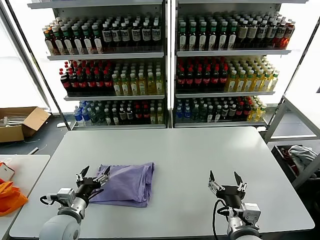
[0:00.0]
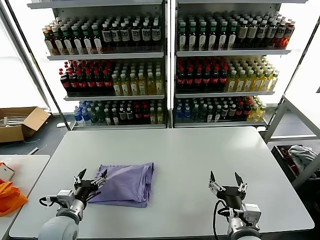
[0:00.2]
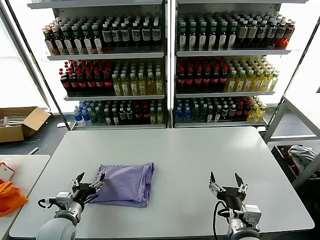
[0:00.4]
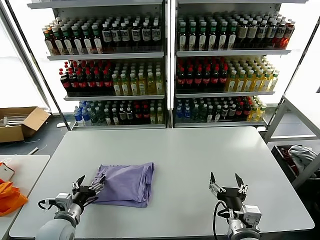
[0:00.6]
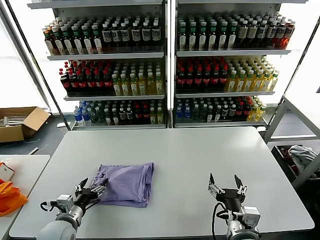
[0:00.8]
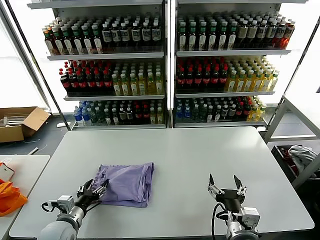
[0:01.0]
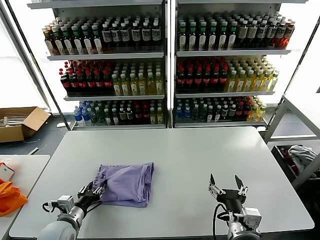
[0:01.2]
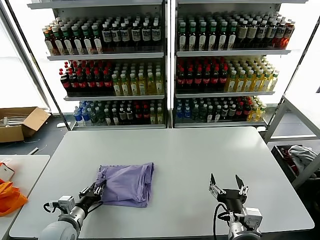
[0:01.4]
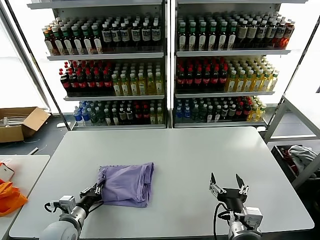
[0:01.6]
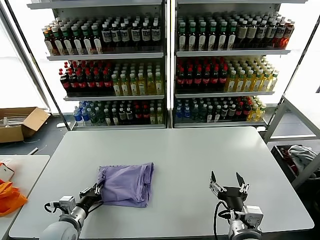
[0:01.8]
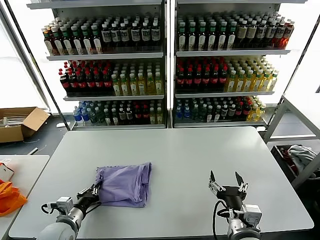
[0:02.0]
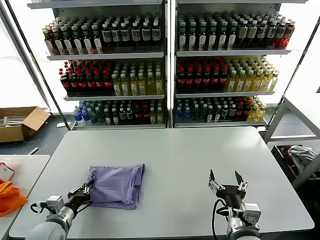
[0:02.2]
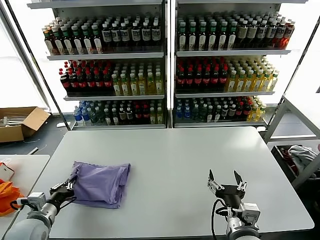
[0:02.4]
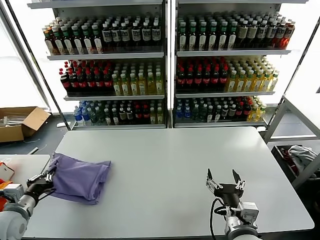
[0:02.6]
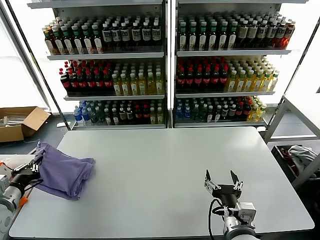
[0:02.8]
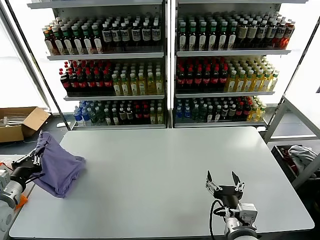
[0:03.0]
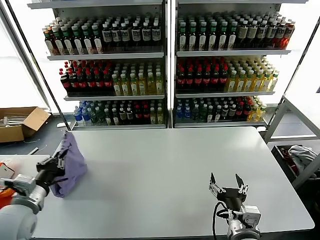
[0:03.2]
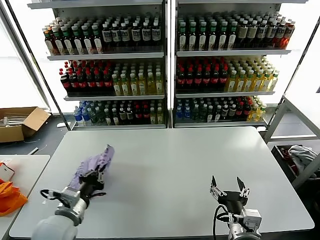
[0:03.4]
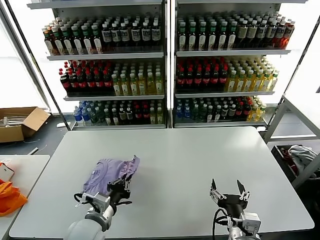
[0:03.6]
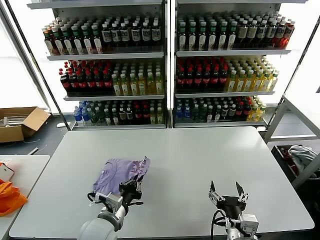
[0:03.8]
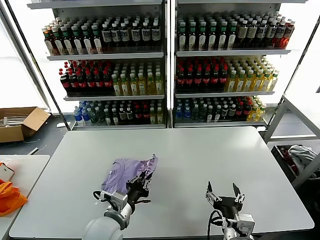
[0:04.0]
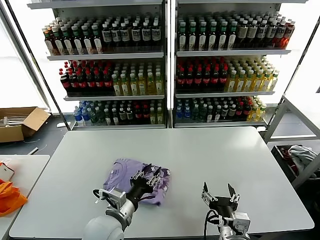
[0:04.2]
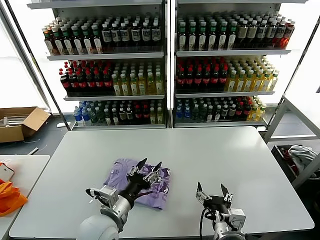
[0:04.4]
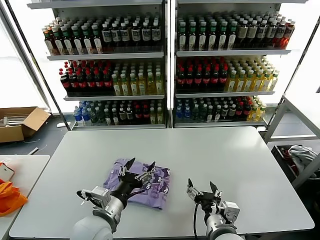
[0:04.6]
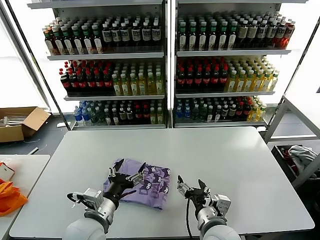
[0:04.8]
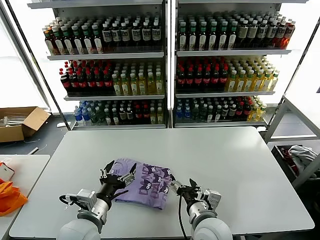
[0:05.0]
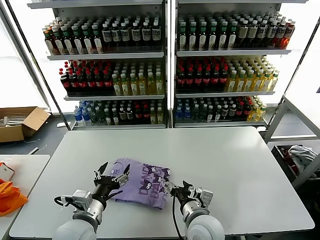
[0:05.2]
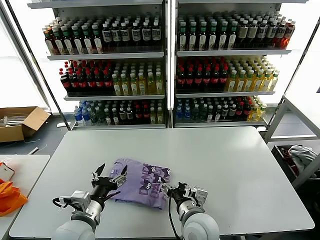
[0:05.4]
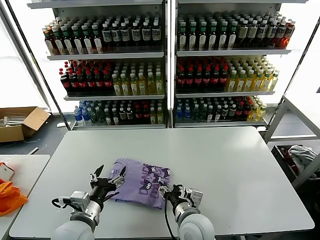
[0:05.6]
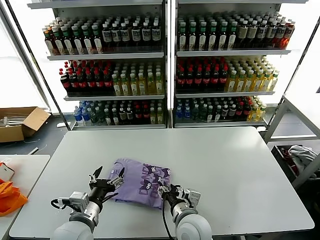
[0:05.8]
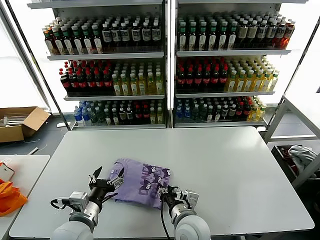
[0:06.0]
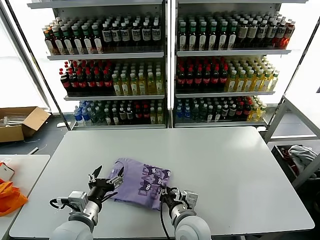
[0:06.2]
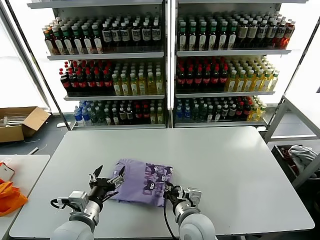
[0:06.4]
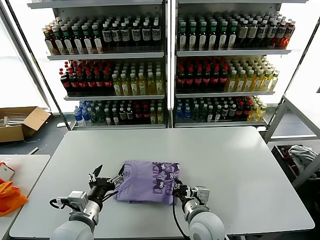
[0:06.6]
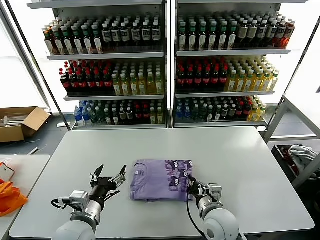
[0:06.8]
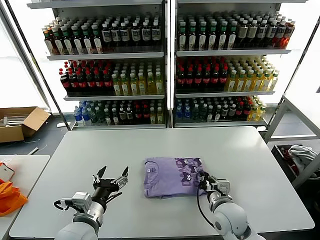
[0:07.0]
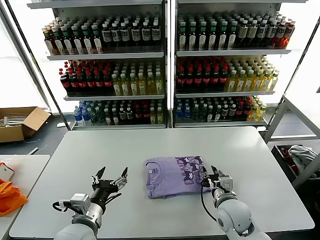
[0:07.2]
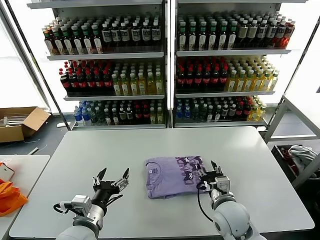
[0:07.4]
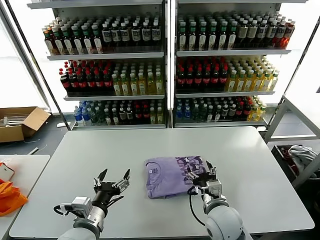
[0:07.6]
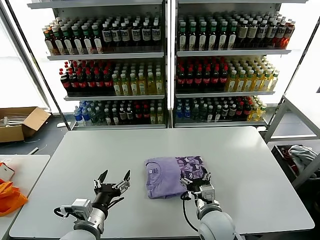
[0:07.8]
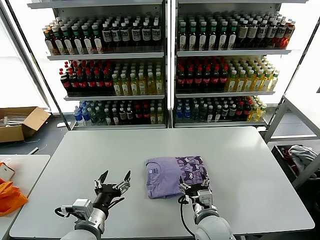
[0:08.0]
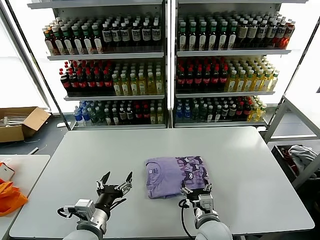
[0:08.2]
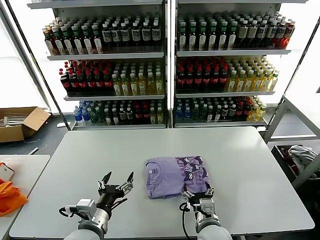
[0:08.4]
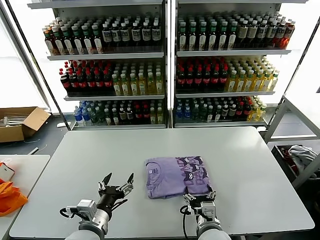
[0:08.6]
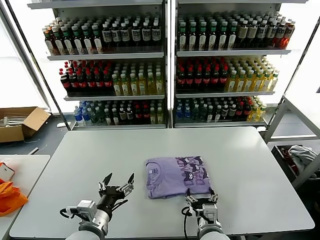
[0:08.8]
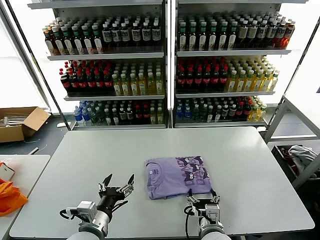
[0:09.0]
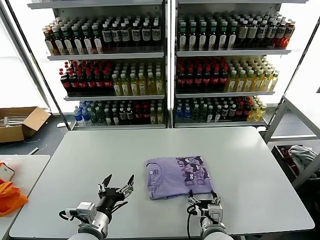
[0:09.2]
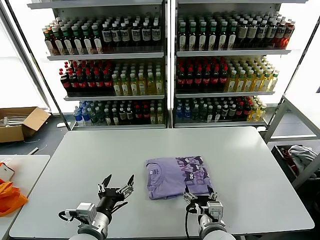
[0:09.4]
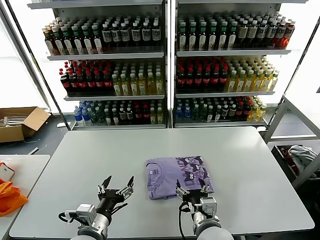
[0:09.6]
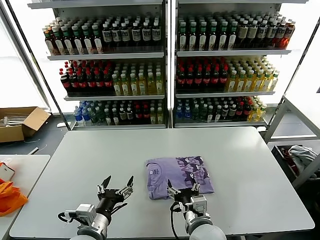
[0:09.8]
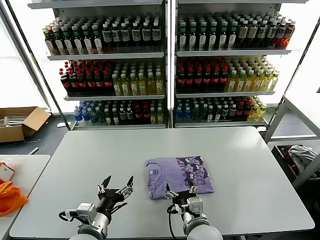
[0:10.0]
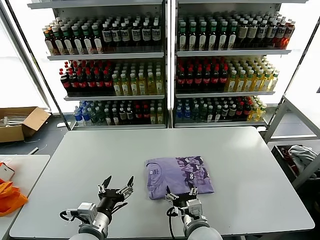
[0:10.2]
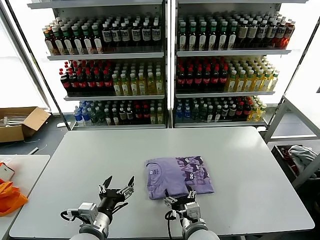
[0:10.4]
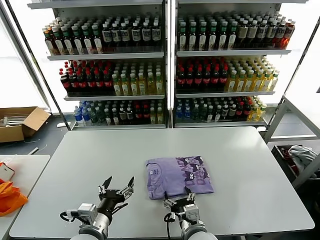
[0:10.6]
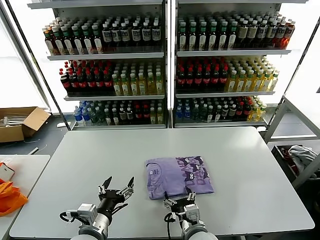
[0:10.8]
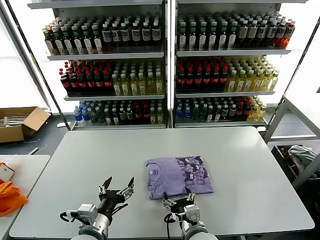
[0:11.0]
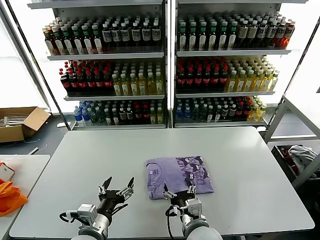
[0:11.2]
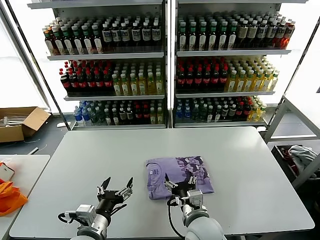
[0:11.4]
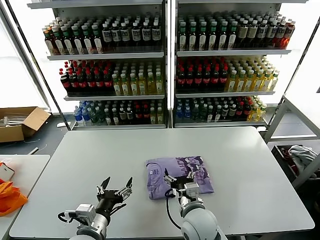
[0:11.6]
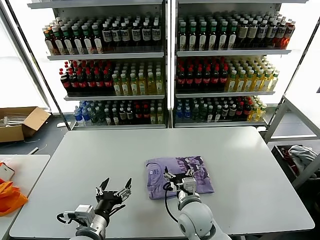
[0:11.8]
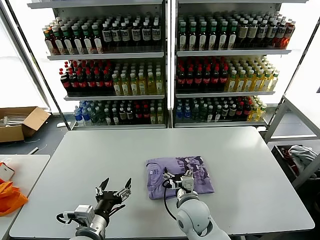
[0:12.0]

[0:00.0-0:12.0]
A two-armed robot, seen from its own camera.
Task of the whole recording: fold and organize the clothes.
Step, 0:00.0 to 0:04.2: Flip the folded clothes over with left gripper.
0:00.0 to 0:01.6: The left gripper shifts by approximately 5 cm, and closes its fingers.
0:01.6 to 0:03.0: The left gripper goes roughly 20 cm upward and to the left.
0:03.0 to 0:04.4: The left gripper goes approximately 30 cm to the right, and opens its fingers.
0:04.4 to 0:06.0: The right gripper shifts about 10 cm to the left and forward, and closes its fingers. Meanwhile the left gripper travels to the left by roughly 5 cm, and opens up.
0:06.0 to 0:07.6: The right gripper shifts approximately 10 cm to the right, and closes, then opens again.
0:07.6 to 0:09.0: The right gripper goes some 5 cm backward.
0:09.0 to 0:10.4: There are only small adjustments of the grippers.
0:10.4 to 0:12.0: The right gripper travels forward by approximately 10 cm.

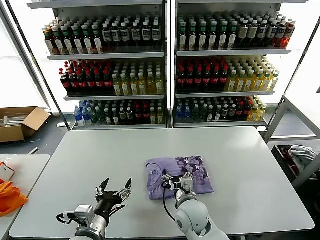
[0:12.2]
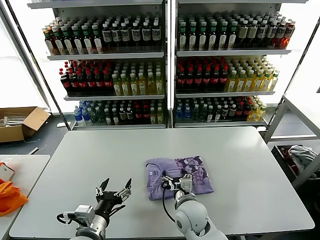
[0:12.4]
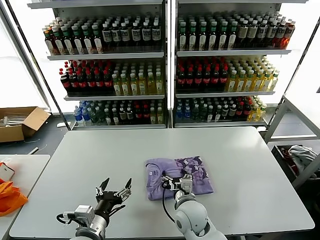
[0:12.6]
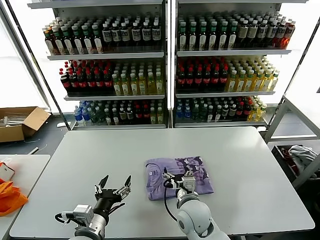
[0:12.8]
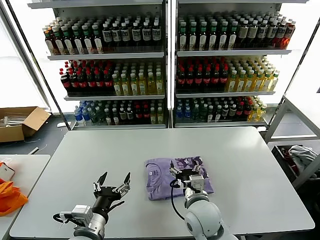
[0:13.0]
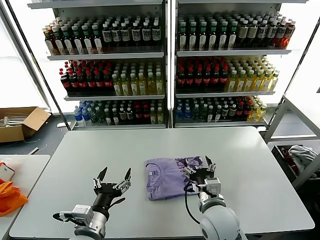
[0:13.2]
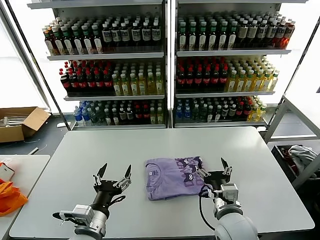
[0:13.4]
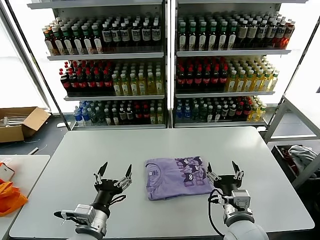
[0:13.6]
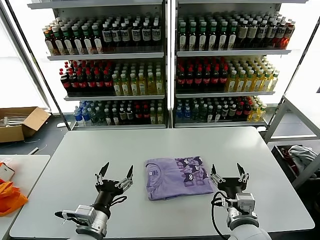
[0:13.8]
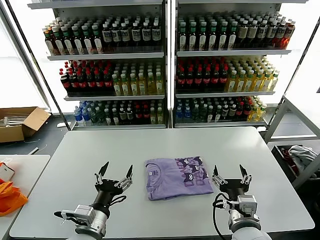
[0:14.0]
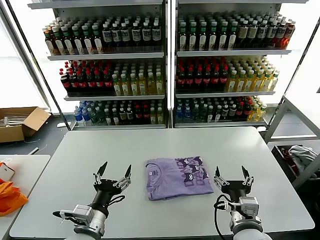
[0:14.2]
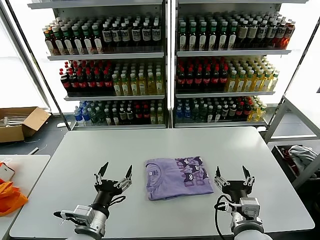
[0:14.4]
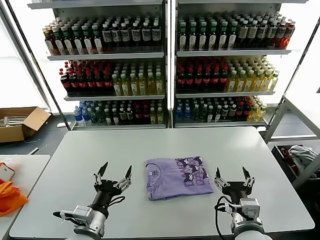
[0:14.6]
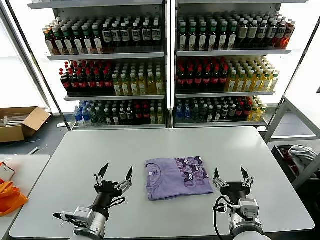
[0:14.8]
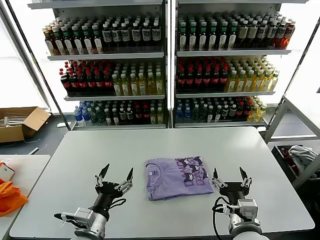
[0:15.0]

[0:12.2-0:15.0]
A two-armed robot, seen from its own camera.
Task of the whole recording: fold and organize the clothes.
0:12.2 to 0:13.6: The right gripper heads to the right, backward and upward, covering about 15 cm.
0:13.6 to 0:15.0: The grippers move only a little.
